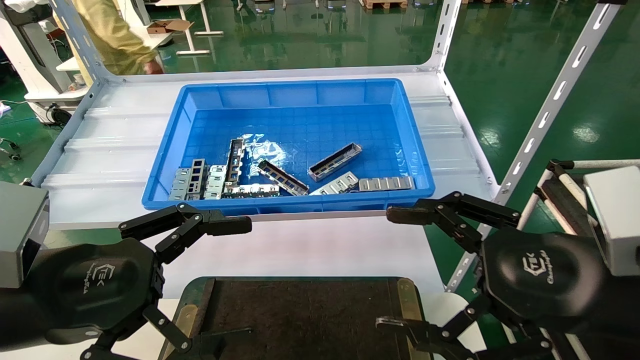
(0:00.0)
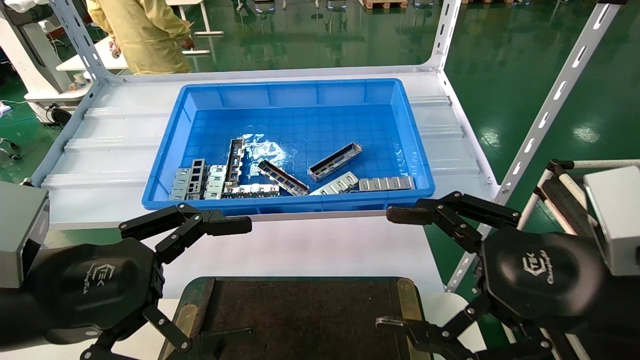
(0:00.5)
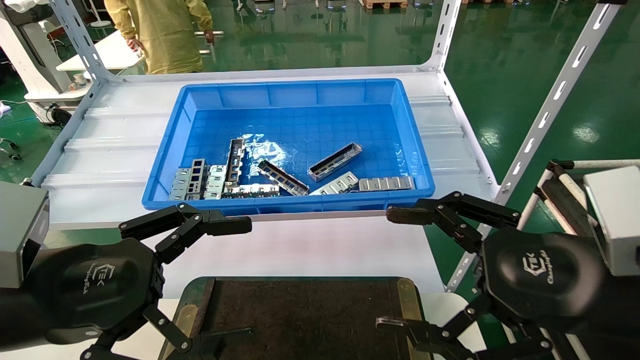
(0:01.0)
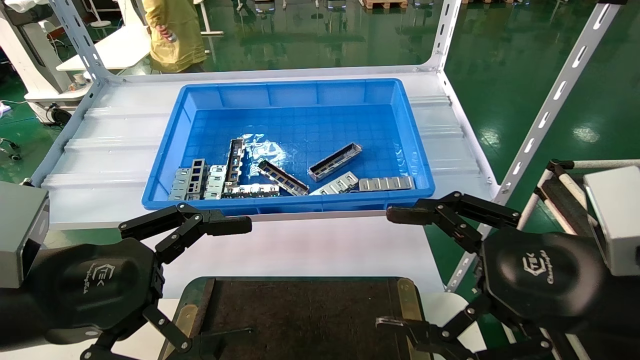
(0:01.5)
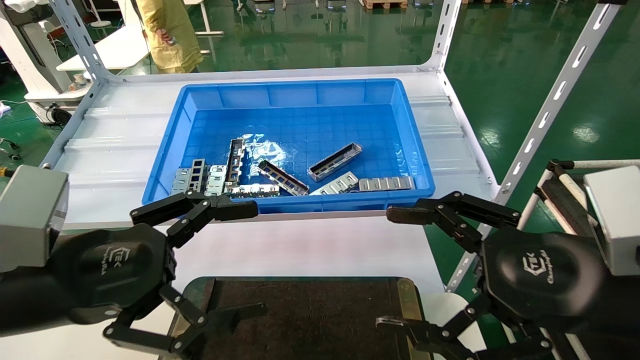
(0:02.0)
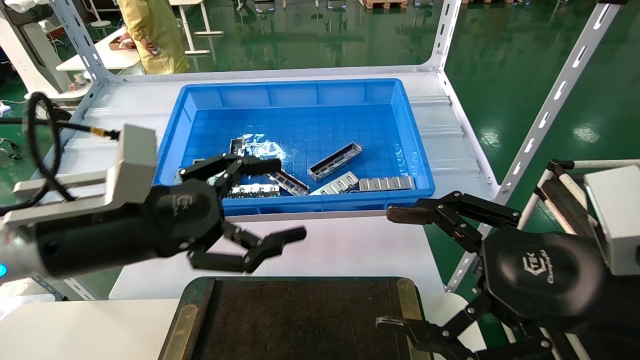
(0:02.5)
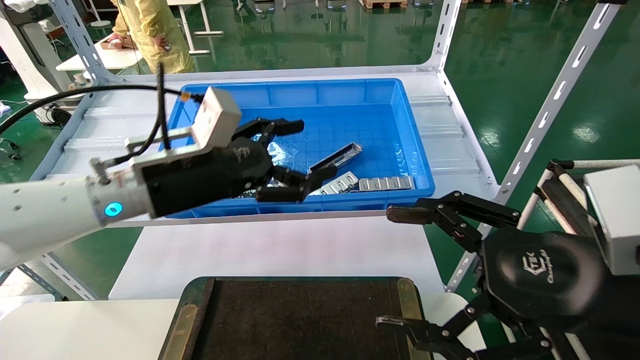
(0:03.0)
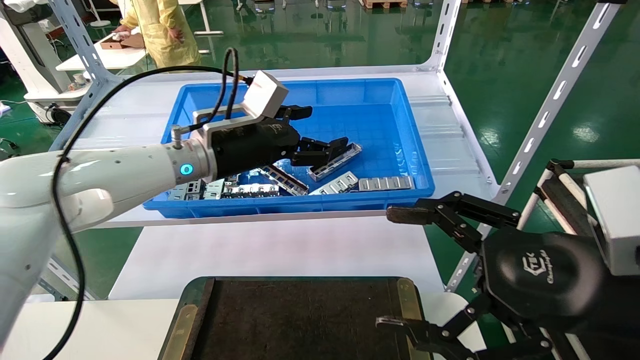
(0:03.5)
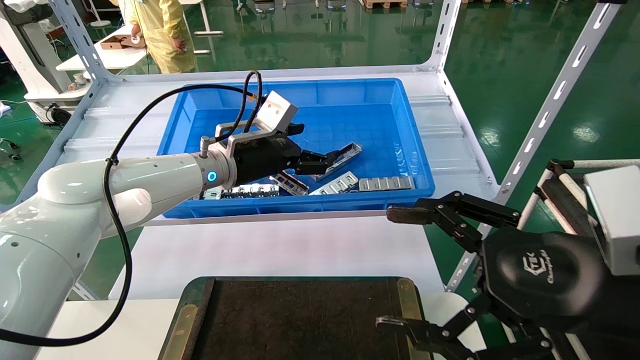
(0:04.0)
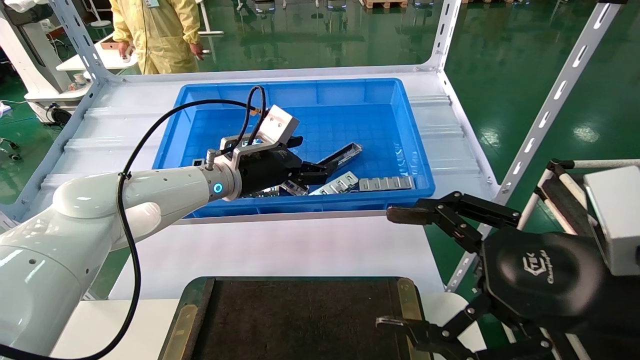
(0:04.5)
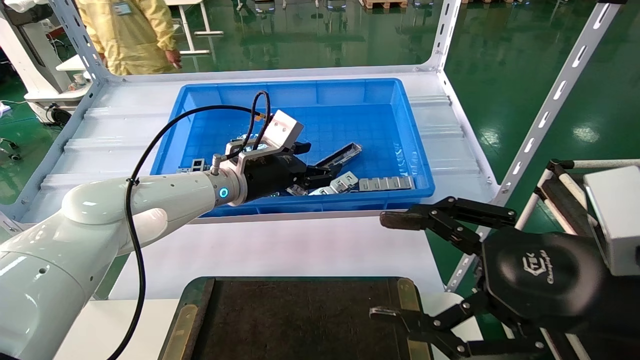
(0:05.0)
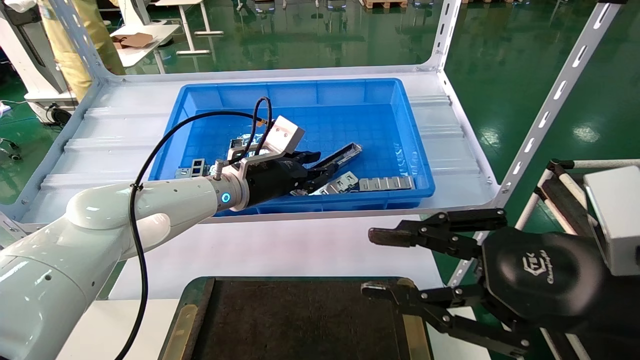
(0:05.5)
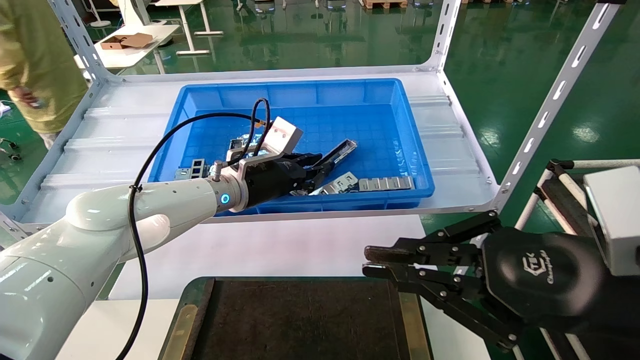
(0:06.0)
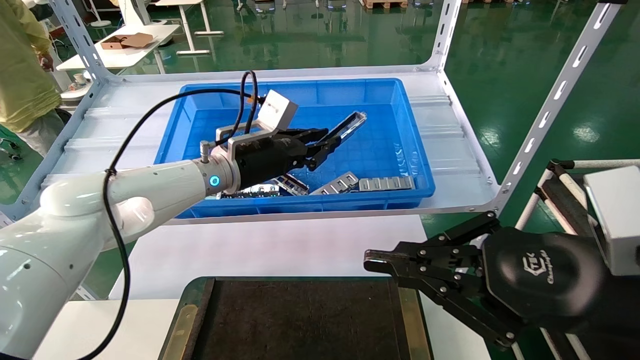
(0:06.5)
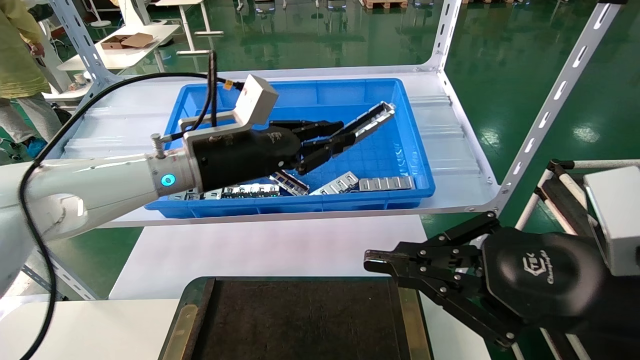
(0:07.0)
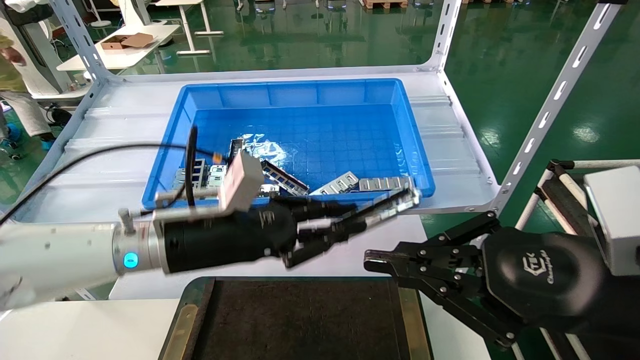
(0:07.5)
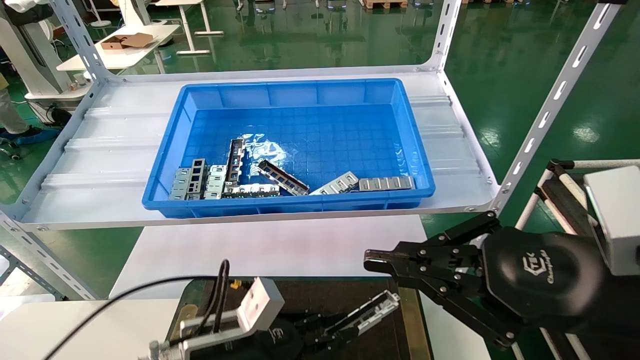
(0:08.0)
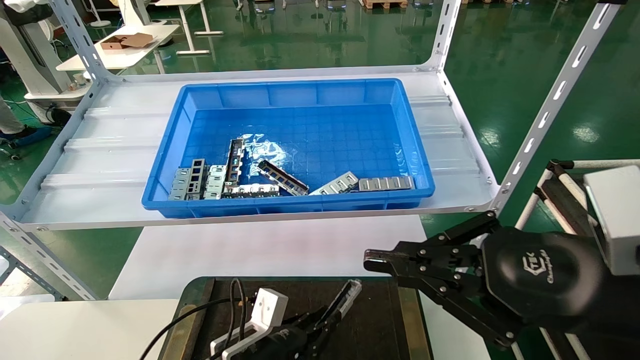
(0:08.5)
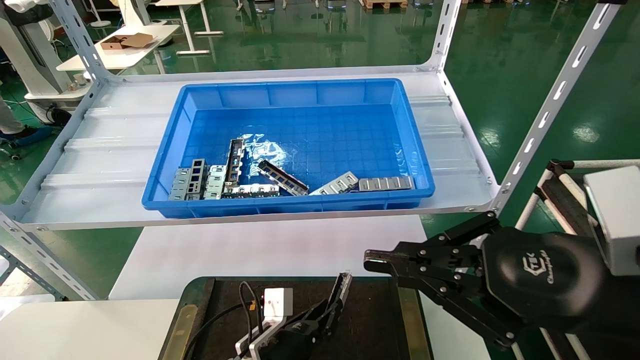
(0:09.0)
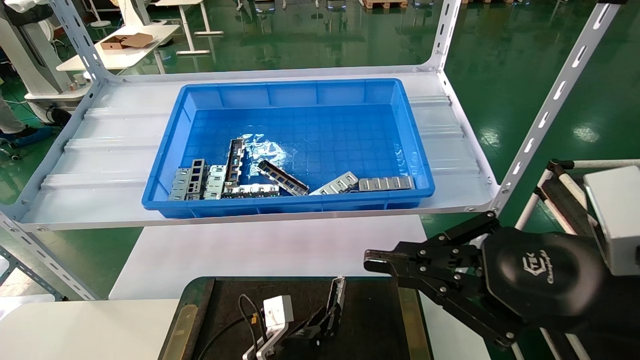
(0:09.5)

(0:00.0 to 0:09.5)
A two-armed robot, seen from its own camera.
Task of the whole recording: Grasp the part with one hand and place it on the black container.
Step, 0:02.5 - 0:05.5: Pick up the front USB bracket from the feeding area.
0:00.0 - 0:02.0: The grippers make only small movements.
0:02.0 - 0:04.0: The left gripper goes some 30 cm forward and to the right.
0:04.0 - 0:05.5: The left gripper closes up. The right gripper closes.
0:05.5 - 0:07.5: The right gripper closes up; the left gripper travels backward by some 15 cm, and closes its fingers.
0:07.5 - 0:09.5: The left gripper shifts about 25 cm downward.

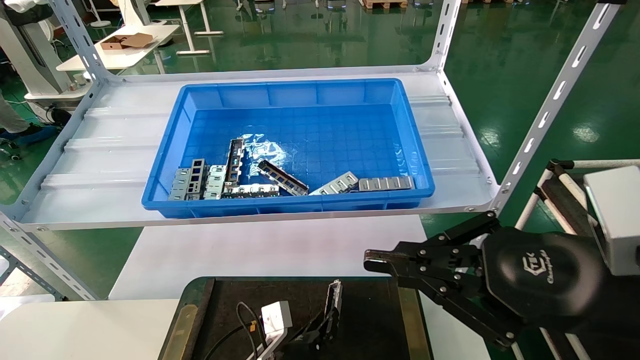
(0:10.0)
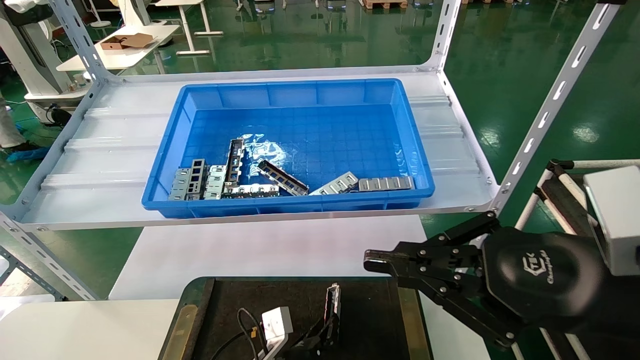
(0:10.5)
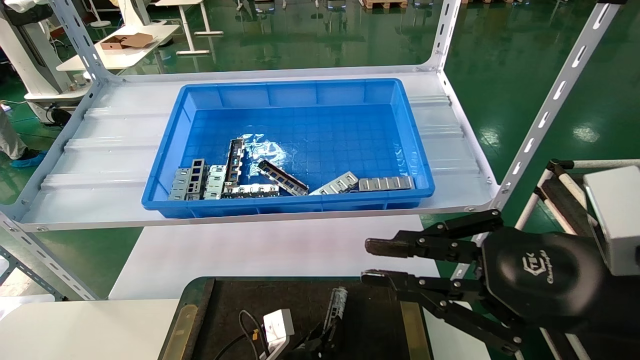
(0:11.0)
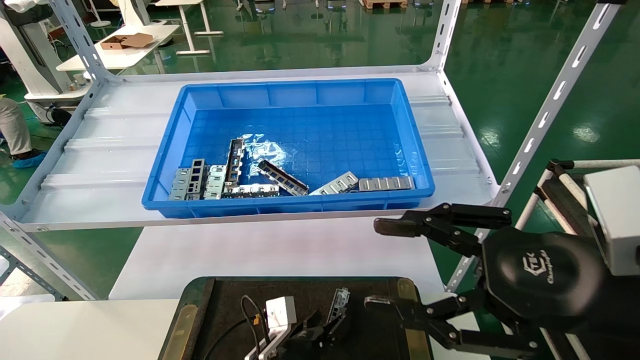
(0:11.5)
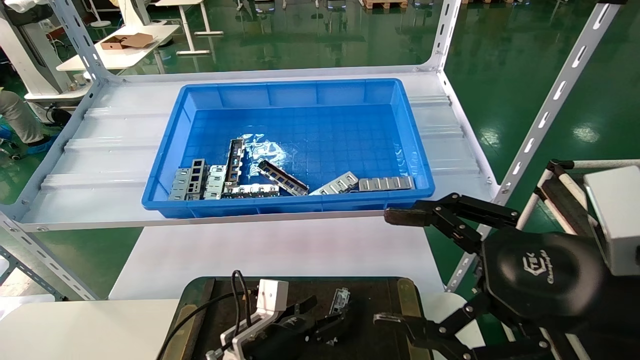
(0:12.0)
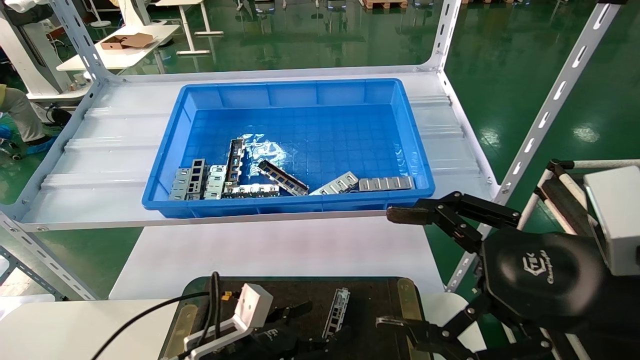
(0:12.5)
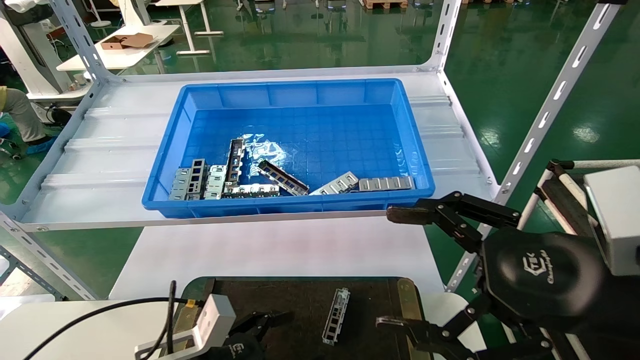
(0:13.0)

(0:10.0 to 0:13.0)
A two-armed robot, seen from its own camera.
Task of the whole recording: Grasp the part with one hand and place it on the black container.
0:10.0 - 0:11.5: The right gripper opens its fingers, while the left gripper opens up.
0:11.5 - 0:13.0: The left gripper moves to the left, upward and backward, some 20 cm, and opens up; the right gripper opens its fingers.
